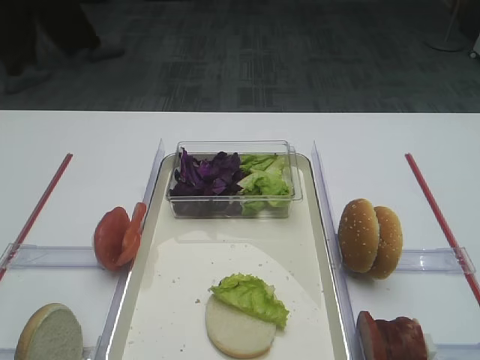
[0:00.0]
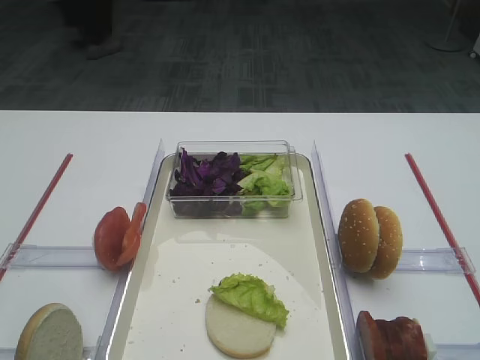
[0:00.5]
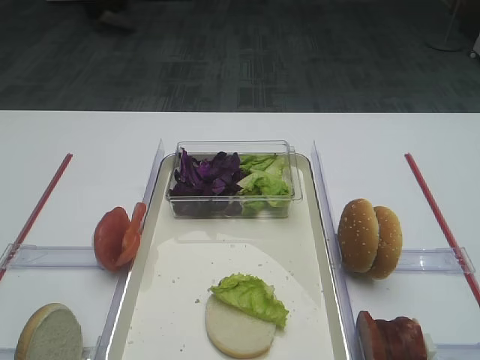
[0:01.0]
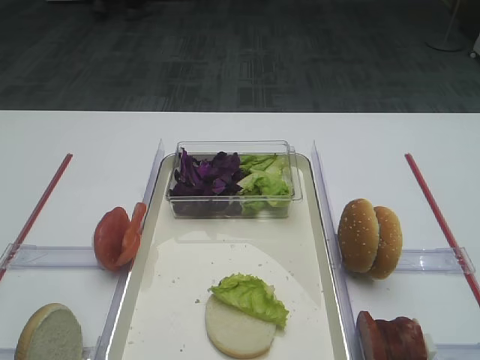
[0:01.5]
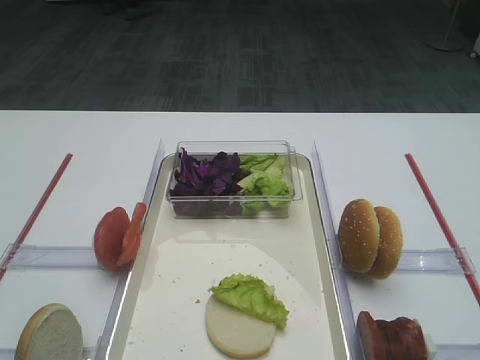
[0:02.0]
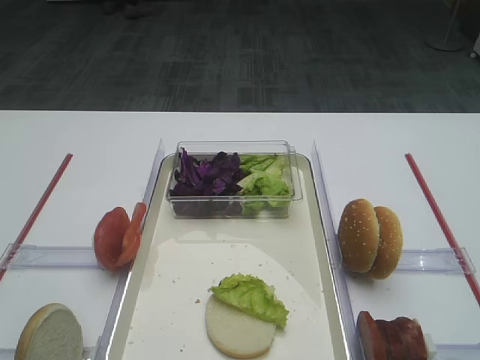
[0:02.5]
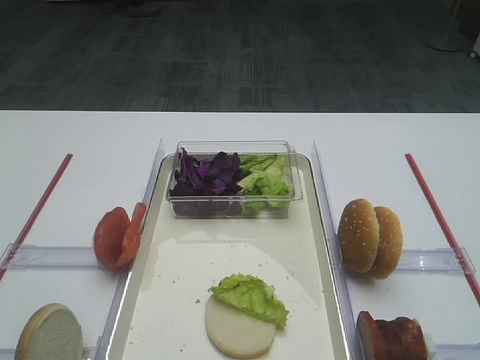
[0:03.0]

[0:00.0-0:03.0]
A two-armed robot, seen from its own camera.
0:00.0 to 0:03.0: Both grippers stay about where they are.
